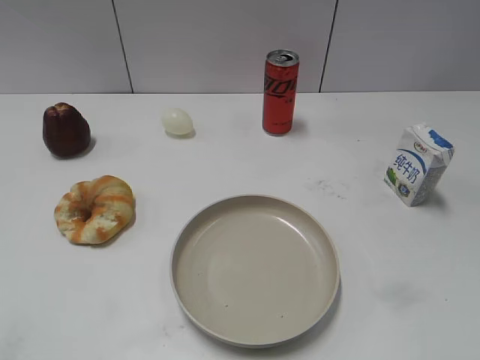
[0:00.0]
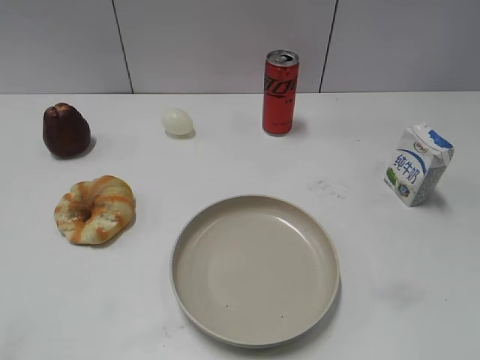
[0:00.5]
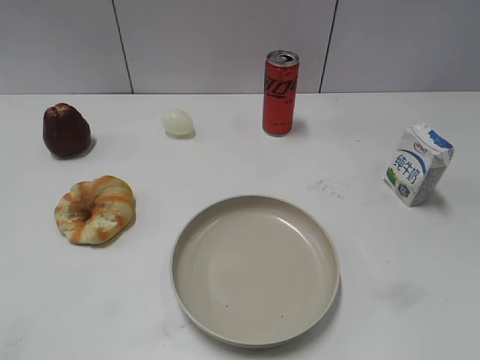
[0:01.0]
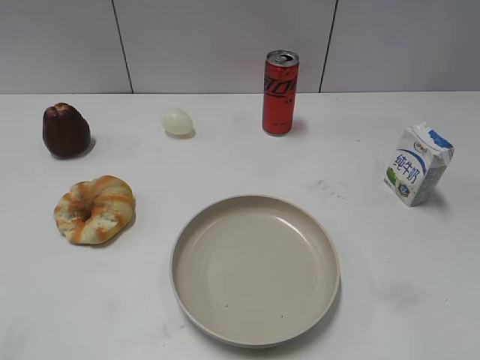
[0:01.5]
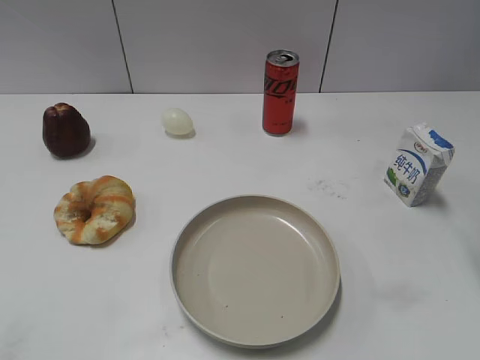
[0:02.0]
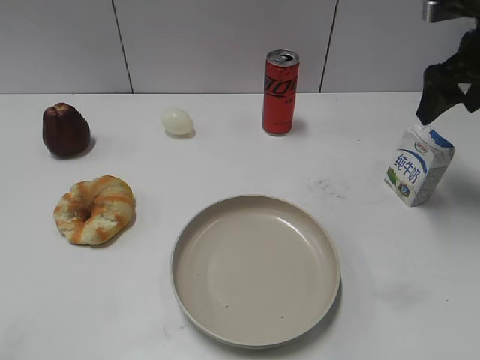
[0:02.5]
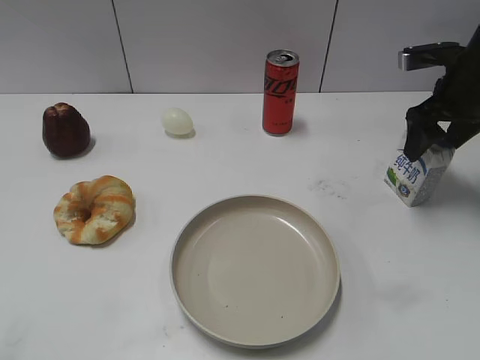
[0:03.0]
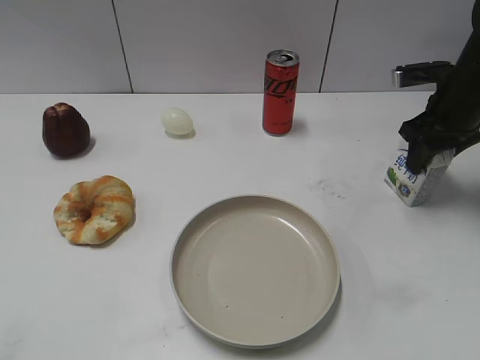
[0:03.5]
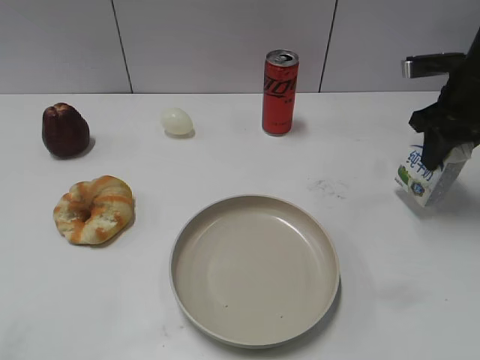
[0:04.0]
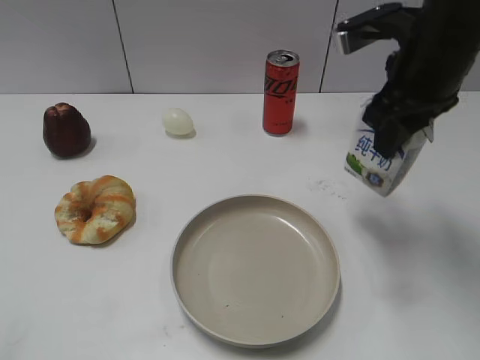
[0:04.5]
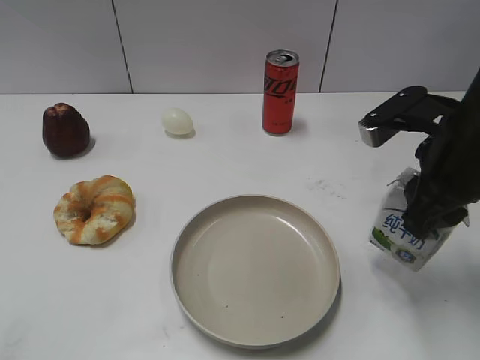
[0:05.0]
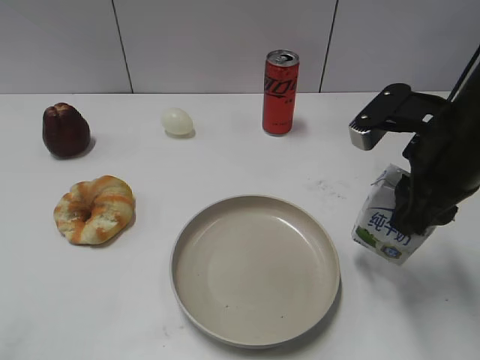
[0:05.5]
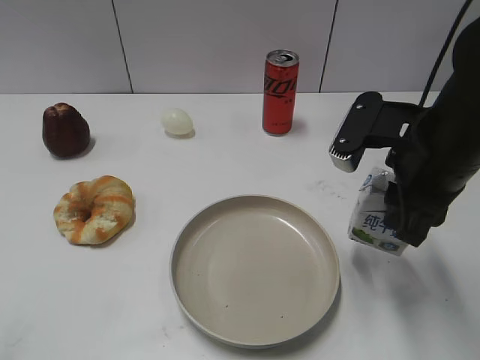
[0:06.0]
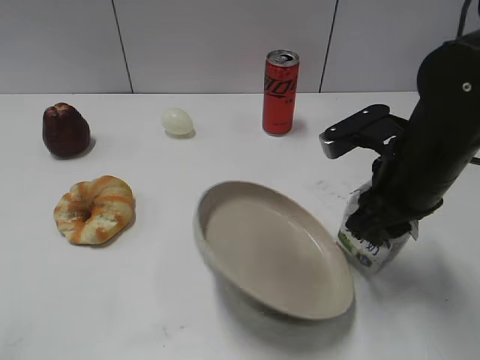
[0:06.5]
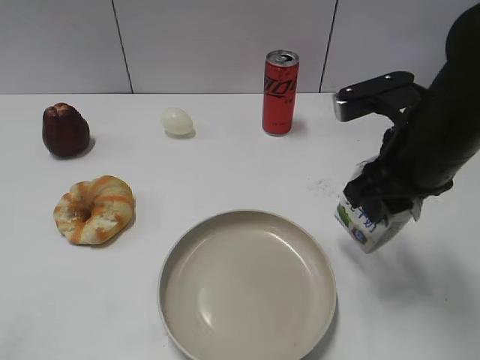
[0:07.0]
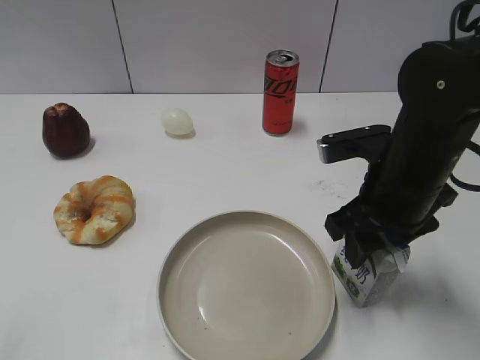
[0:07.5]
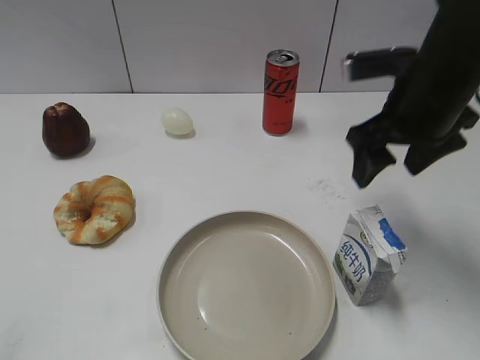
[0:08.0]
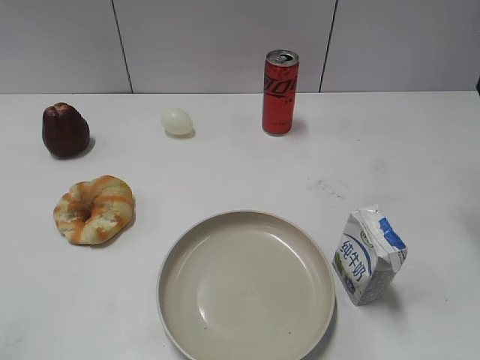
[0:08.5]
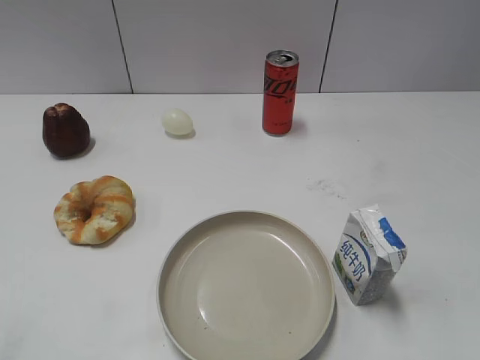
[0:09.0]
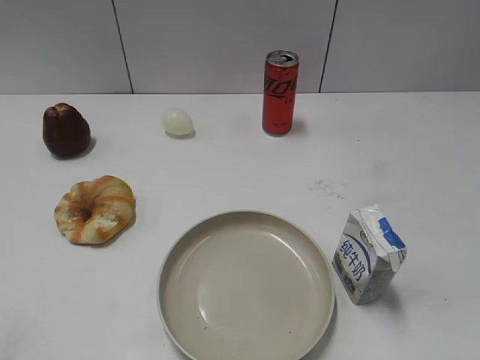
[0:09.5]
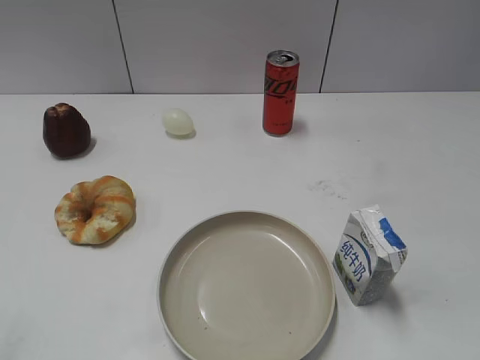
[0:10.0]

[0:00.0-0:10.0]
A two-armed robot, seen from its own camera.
Step, 0:01.5 to 0:03.5: Grasp the milk with right gripper.
Step, 0:04.0 to 0:07.5: Place the milk on the table with right gripper.
0:02.0 to 0:04.0: The right gripper shifts approximately 15 cm forward and downward, and closes.
0:04.0 to 0:06.0: The right gripper is displaced backward and to the left by some 15 cm.
0:06.0 to 0:08.0: The right gripper is displaced forward by roughly 5 cm, and opens its fingers.
0:08.0 to 0:10.0: The right gripper heads backward, covering approximately 30 cm.
